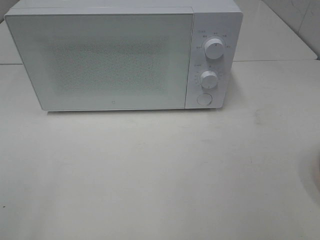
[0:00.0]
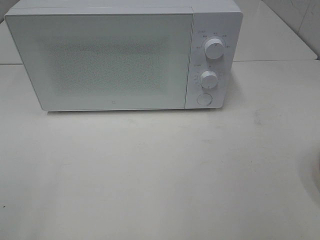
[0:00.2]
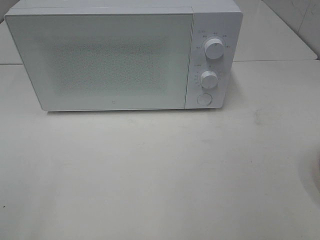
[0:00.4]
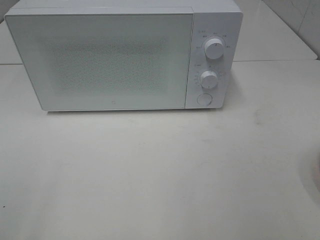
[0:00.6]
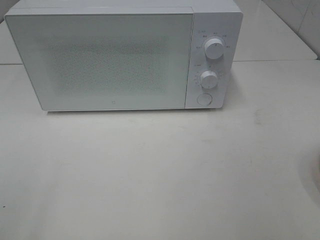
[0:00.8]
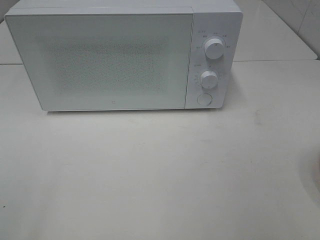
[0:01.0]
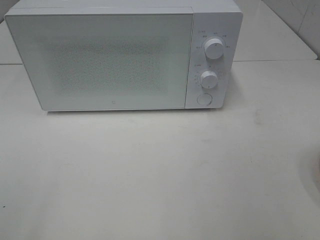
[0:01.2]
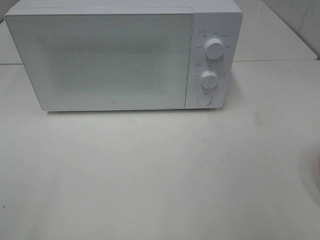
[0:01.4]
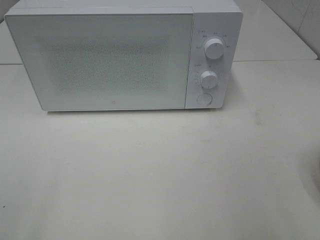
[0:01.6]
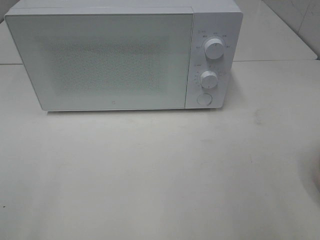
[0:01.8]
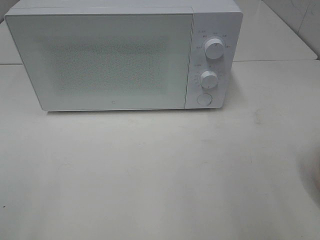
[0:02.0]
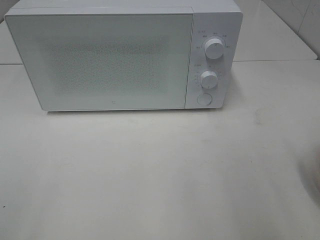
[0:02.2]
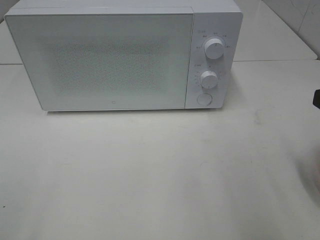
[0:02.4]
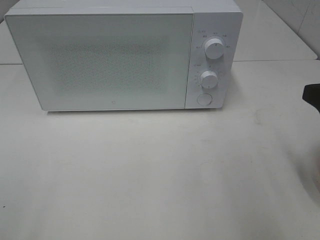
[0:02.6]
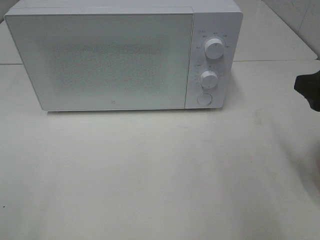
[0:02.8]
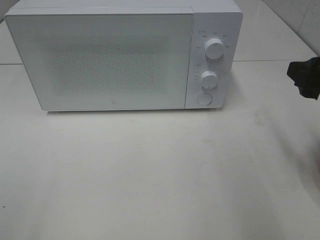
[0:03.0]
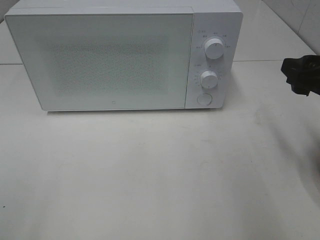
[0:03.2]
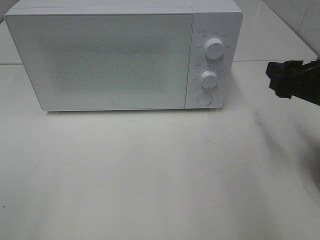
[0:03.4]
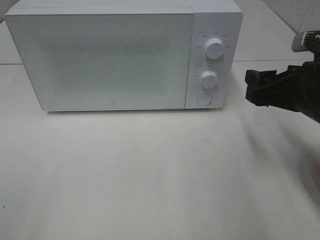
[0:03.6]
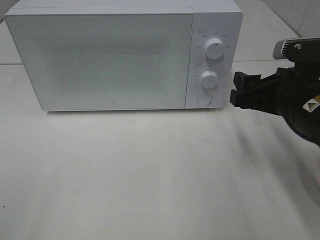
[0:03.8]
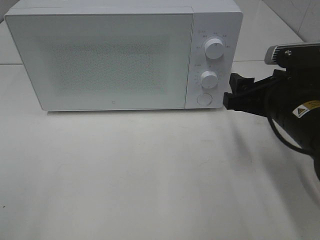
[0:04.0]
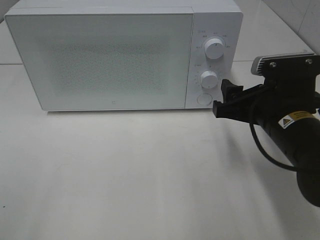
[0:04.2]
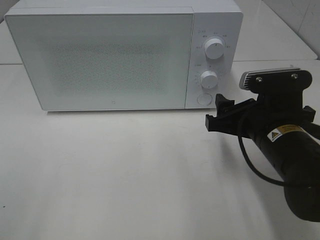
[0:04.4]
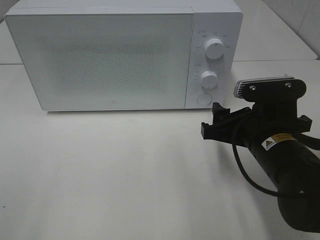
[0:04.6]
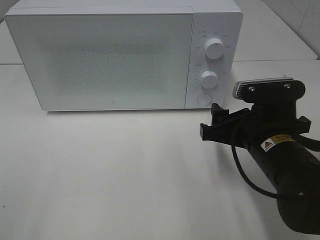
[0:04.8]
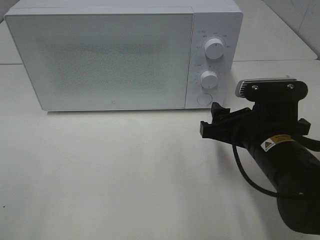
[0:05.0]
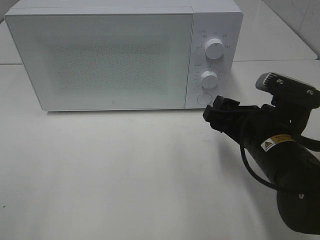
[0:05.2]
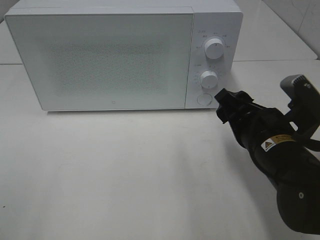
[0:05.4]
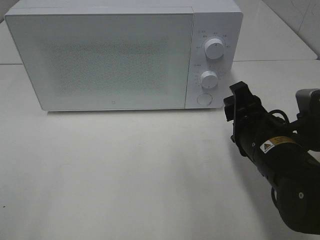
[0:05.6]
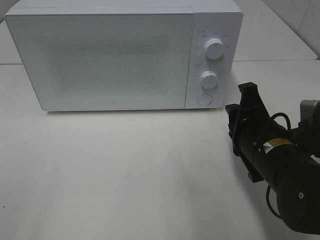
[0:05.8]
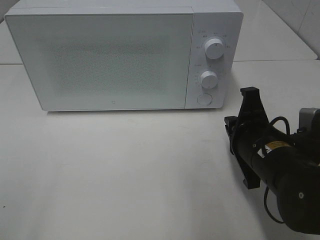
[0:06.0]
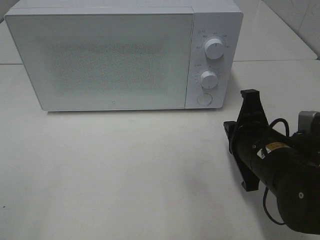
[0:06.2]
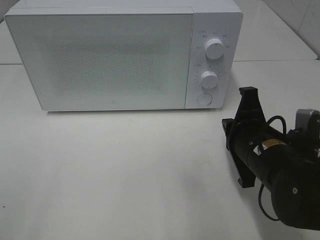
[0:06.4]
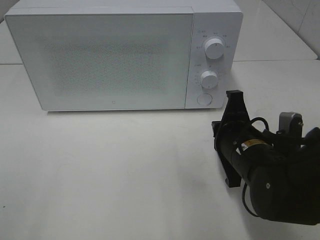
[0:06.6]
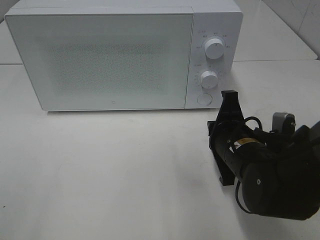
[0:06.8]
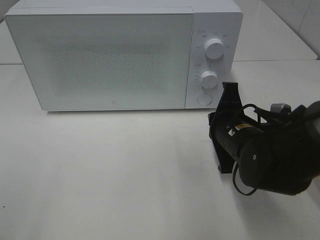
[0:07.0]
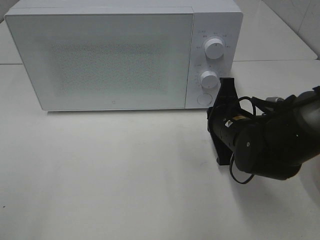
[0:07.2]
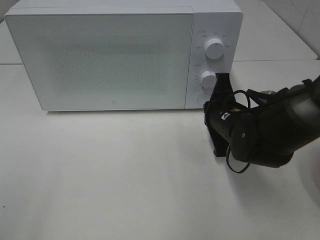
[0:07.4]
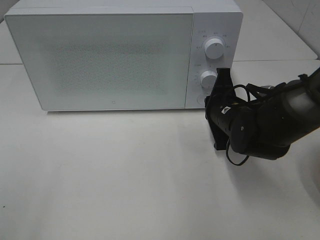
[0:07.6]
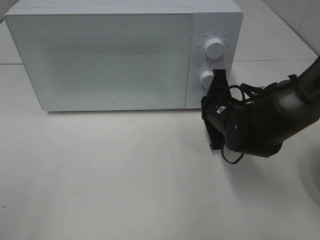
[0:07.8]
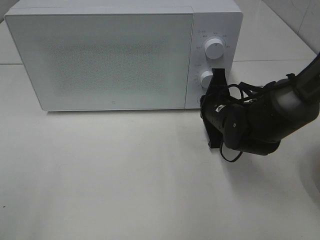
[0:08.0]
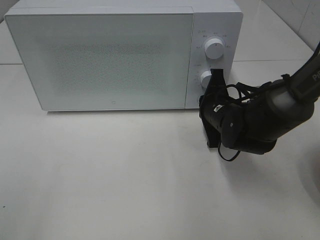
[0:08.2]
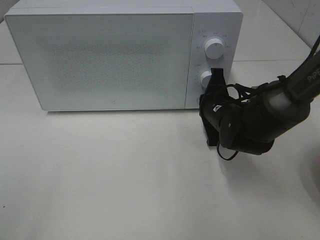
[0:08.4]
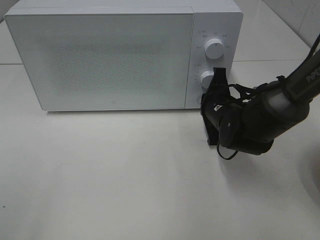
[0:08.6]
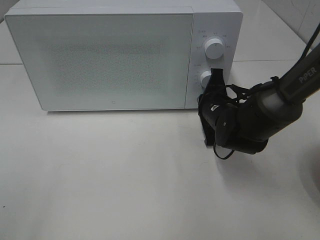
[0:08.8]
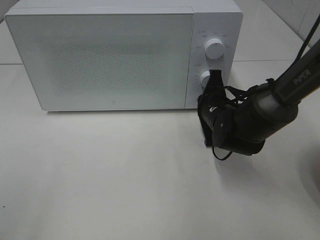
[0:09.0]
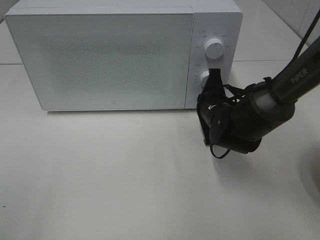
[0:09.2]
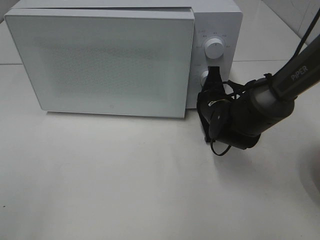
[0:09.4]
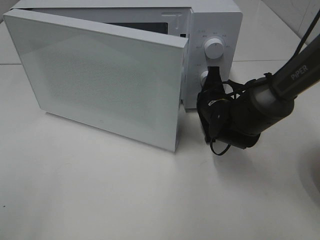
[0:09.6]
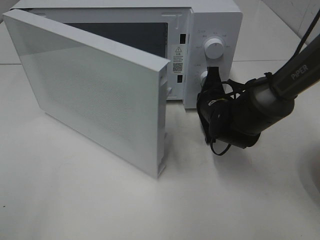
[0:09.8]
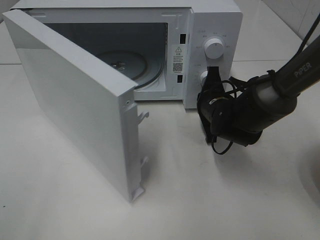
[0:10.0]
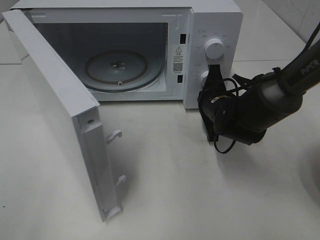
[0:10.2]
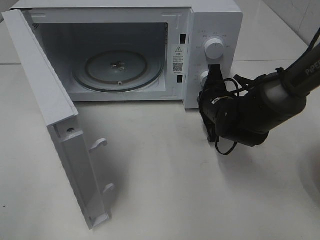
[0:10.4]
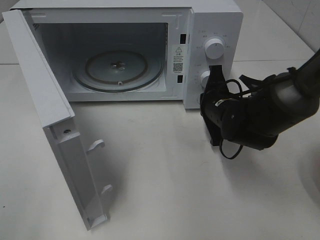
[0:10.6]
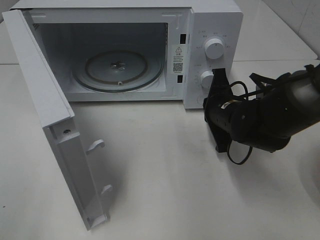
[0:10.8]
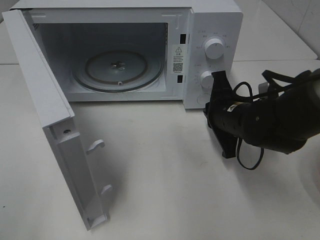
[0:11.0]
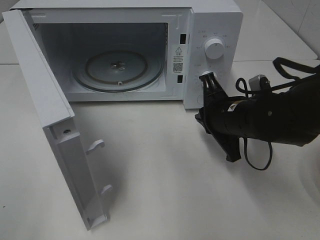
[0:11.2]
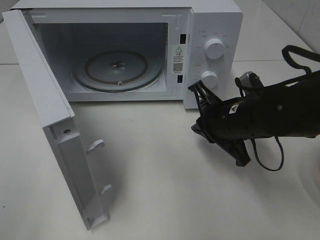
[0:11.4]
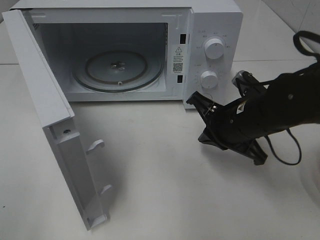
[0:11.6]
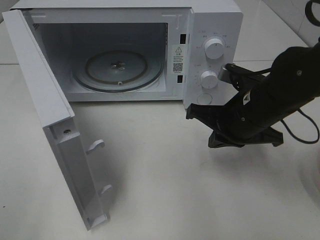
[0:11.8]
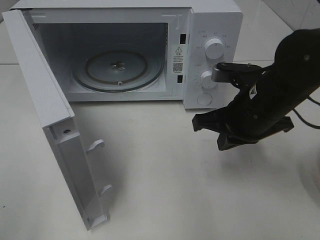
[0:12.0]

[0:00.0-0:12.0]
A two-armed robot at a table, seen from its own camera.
Task of the whole recording: Heat the burger.
Step, 0:00.0 to 0:10.8: Right hand: press the switch.
0:01.6 to 0:03.0: The right gripper goes roughly 15 cm forward.
0:03.0 to 0:04.4: The right gripper heads to the left and downward, covering approximately 15 cm.
0:04.4 to 0:06.0: The right gripper closes its fingers.
0:06.0 to 0:07.6: The right gripper shifts approximately 10 cm forward.
0:07.6 to 0:09.0: The grippers stay close to where they were, moving slightly.
0:10.4 to 0:12.0: The right gripper goes roughly 10 cm upward and backward.

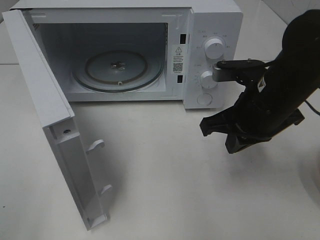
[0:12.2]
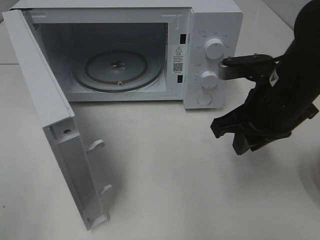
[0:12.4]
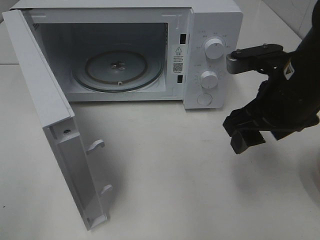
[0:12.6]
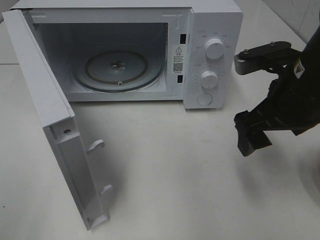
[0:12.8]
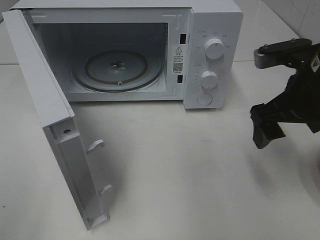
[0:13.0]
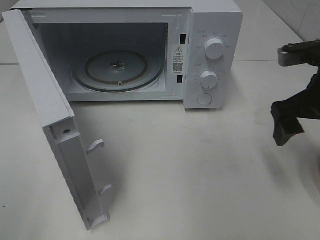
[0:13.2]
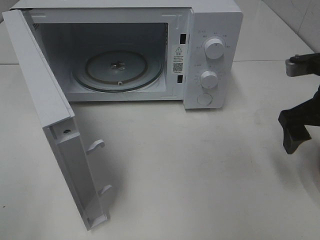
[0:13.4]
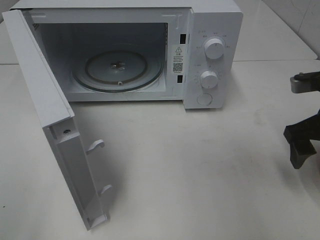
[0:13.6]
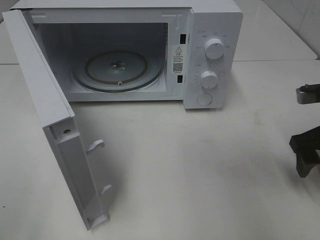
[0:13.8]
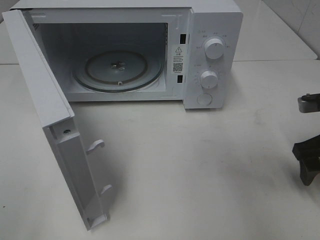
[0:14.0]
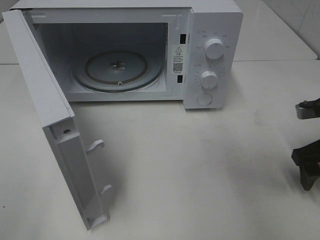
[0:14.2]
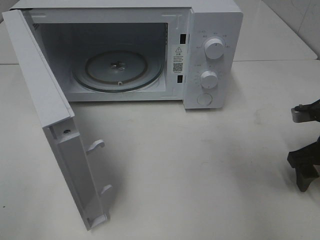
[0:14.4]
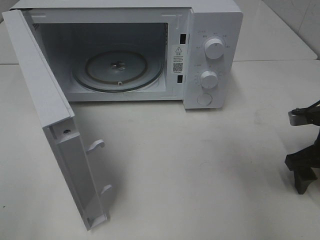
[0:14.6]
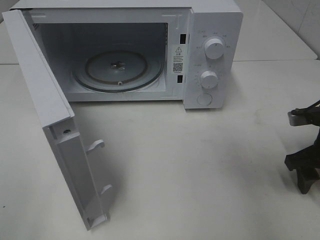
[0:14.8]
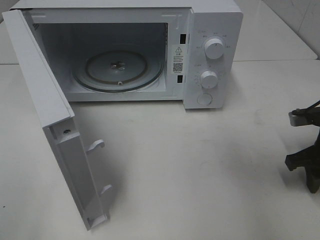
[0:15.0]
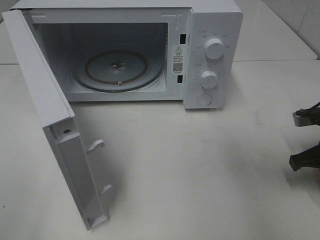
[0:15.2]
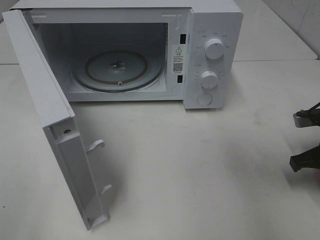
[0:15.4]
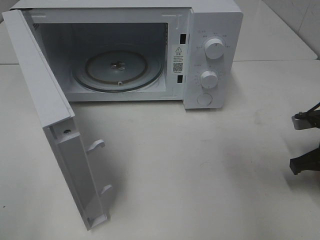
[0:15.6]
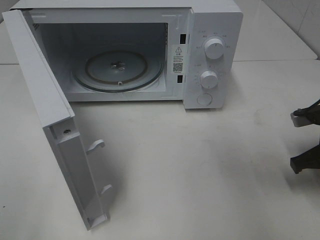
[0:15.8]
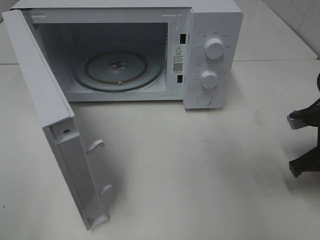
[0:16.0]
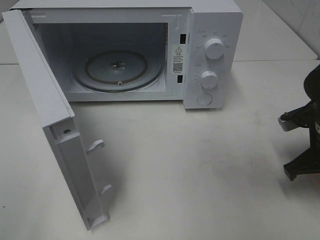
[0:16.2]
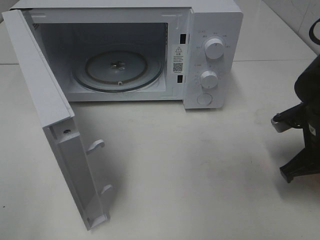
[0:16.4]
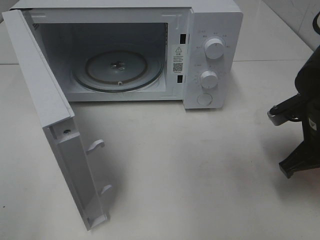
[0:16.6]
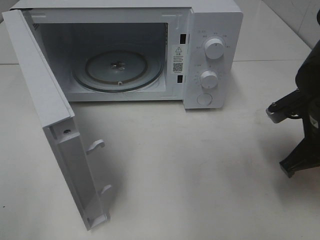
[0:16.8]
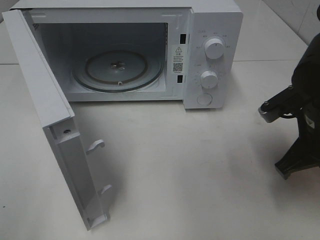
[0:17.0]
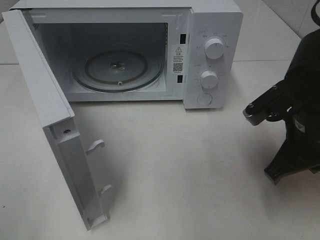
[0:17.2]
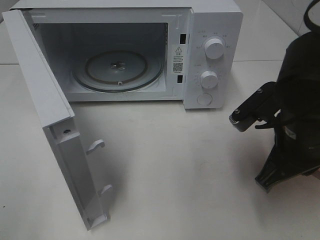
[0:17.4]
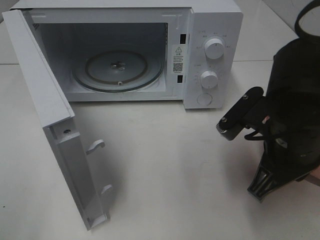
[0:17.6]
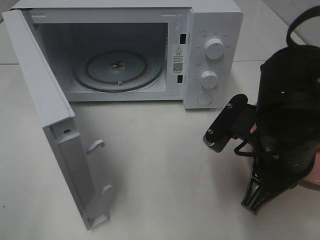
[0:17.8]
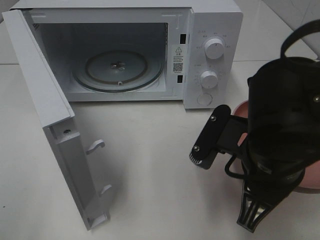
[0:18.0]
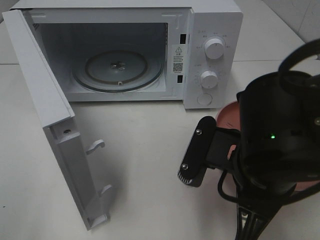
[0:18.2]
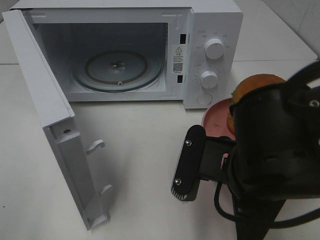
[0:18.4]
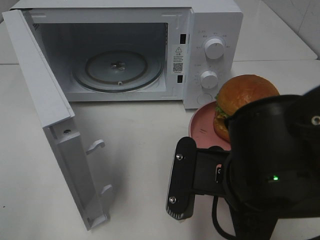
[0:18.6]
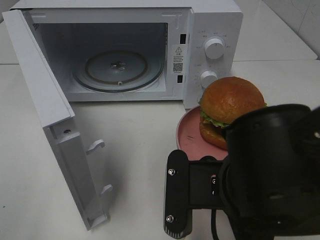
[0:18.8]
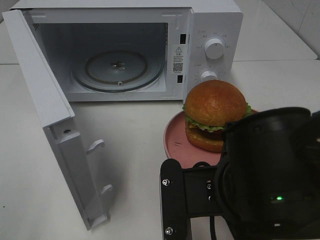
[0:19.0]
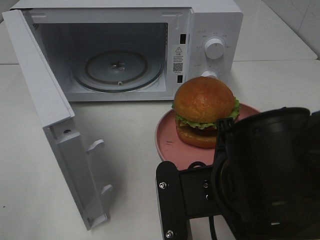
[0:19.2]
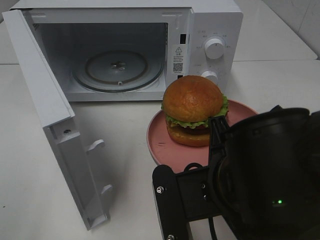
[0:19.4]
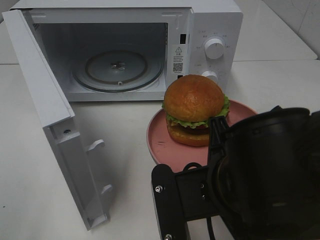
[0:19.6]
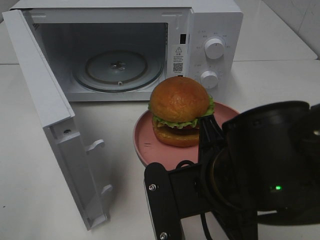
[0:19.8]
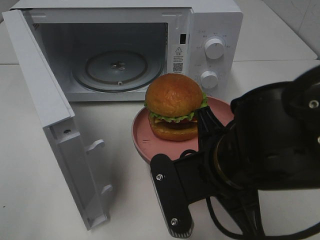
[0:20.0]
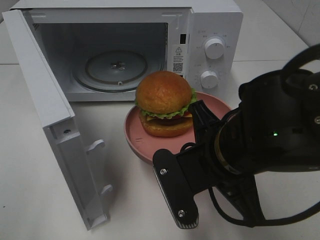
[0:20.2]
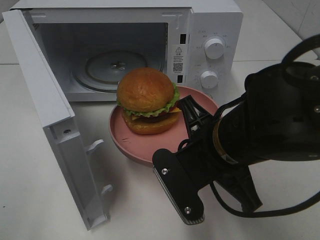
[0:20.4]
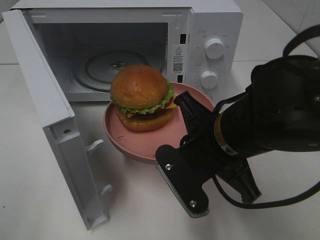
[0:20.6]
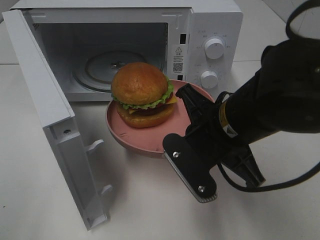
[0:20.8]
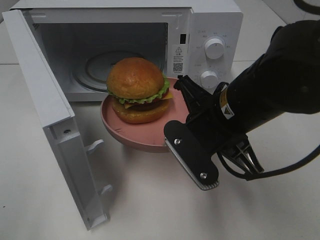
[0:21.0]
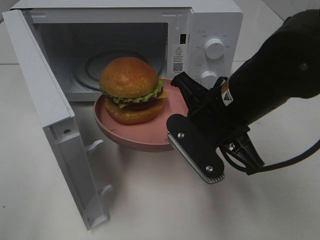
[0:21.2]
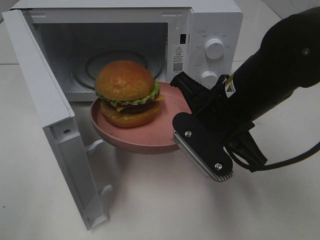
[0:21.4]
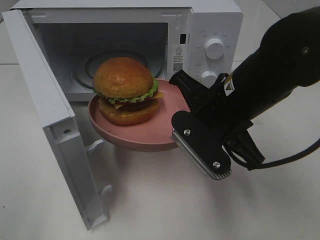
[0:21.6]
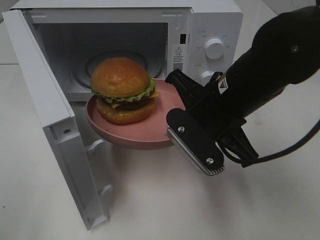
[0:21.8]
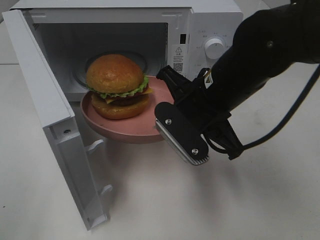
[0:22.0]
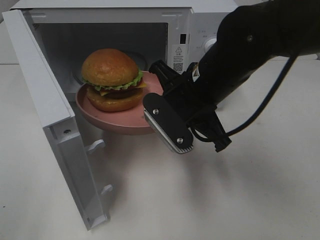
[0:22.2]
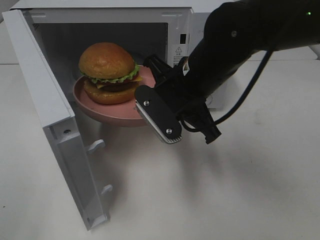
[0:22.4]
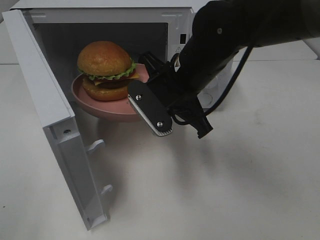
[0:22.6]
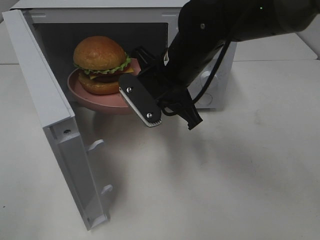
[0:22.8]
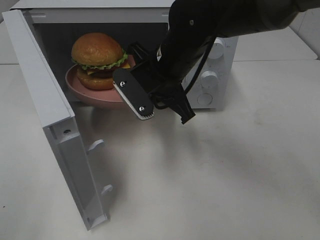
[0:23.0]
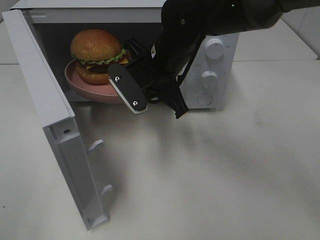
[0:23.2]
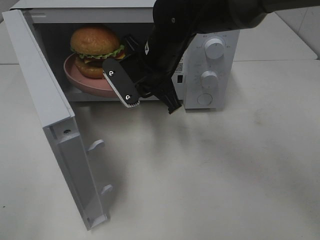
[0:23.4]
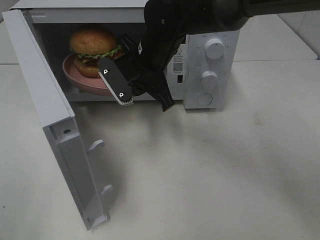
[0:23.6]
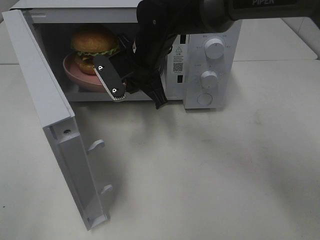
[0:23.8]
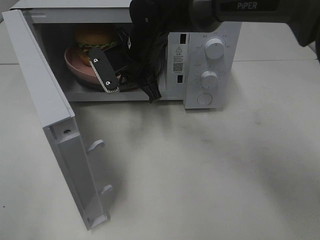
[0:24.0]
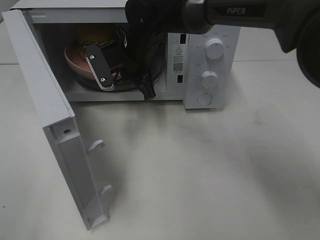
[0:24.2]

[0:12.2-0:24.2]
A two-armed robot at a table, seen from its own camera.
Task of the whole recording: Heat the burger.
Step, 0:12.2 to 0:15.8: Right hand: grab the plate with the hamburger.
0:12.2 to 0:13.8: The right gripper shifts approximately 15 cm to the right, and opens up.
0:13.8 to 0:15.2: The right gripper goes about 5 cm downward, and closes up.
0:15.2 to 0:16.6: The right gripper shifts roughly 5 cm to the left.
0:16.6 to 0:18.2: The right gripper moves to the left and backward, about 15 cm.
0:19.8 to 0:21.2: The right gripper goes some 10 cm forward.
0:21.2 to 0:22.6: The right gripper shifts some 5 cm forward.
0:22.6 to 0:24.2: The right gripper is displaced forward and to the left by about 15 cm.
